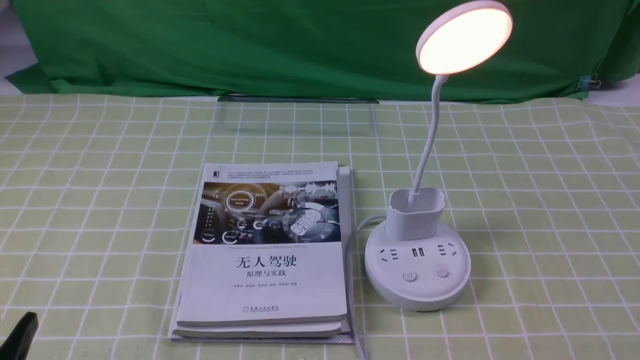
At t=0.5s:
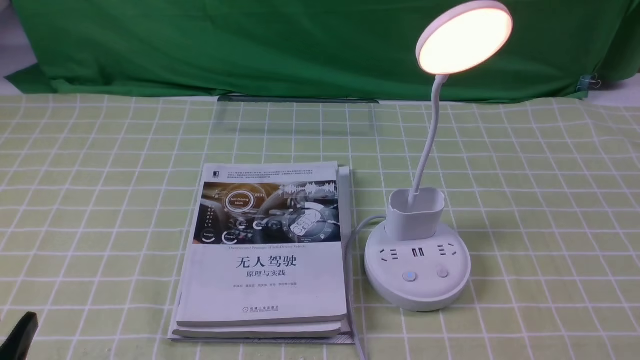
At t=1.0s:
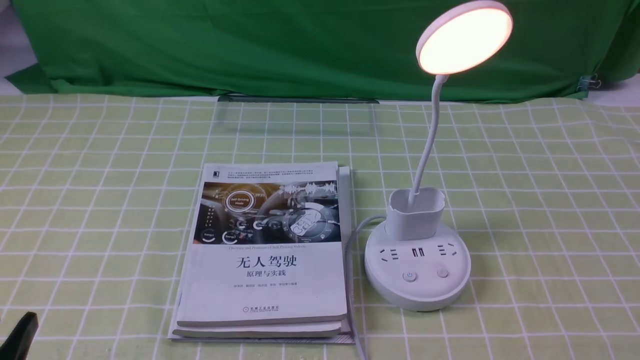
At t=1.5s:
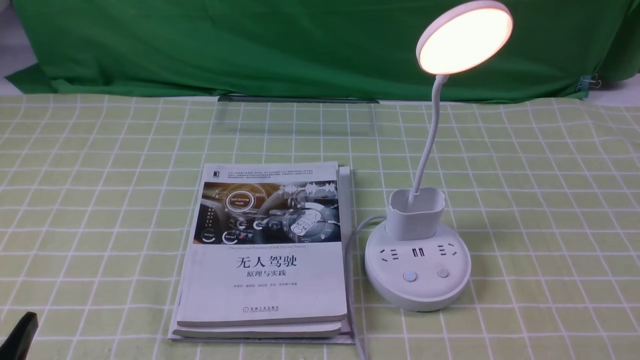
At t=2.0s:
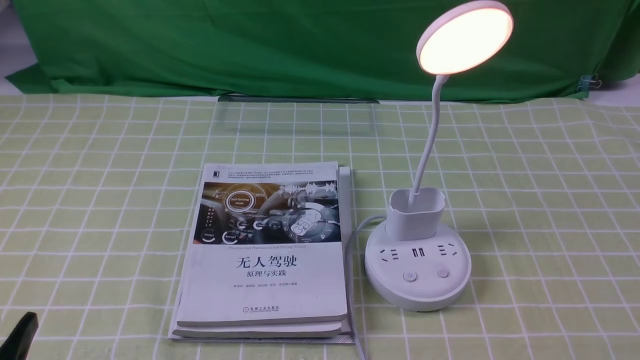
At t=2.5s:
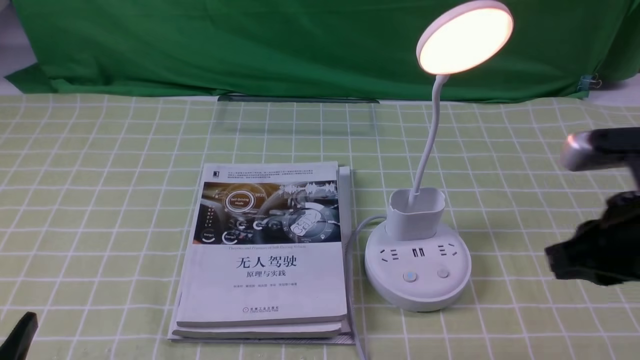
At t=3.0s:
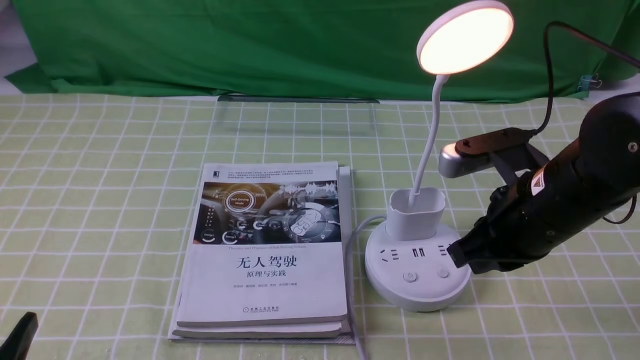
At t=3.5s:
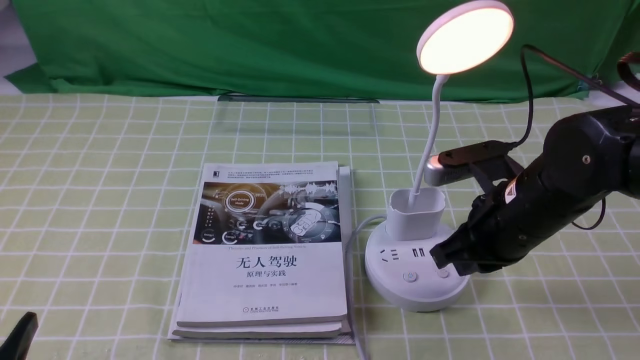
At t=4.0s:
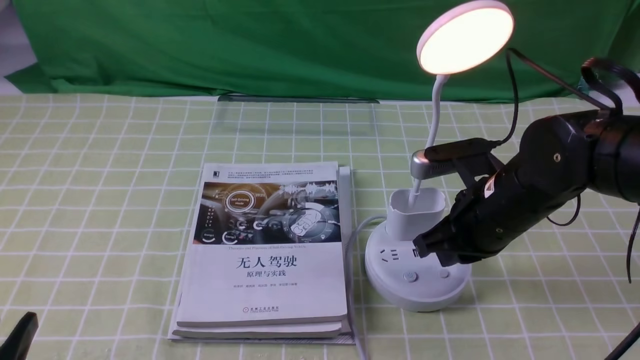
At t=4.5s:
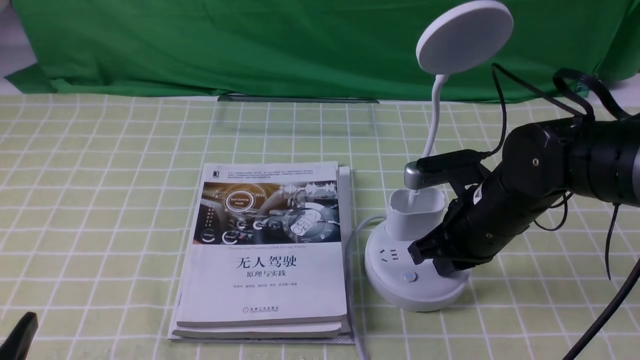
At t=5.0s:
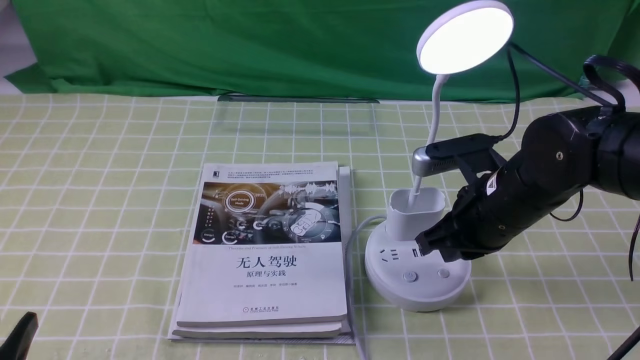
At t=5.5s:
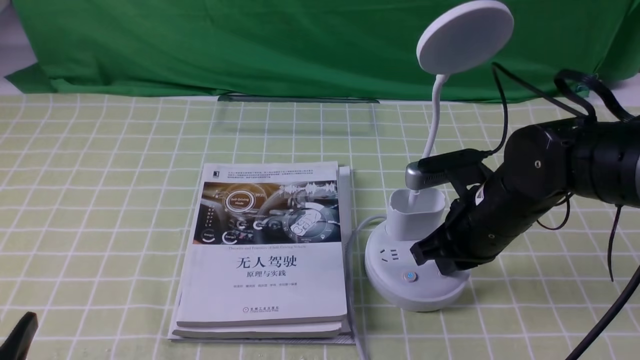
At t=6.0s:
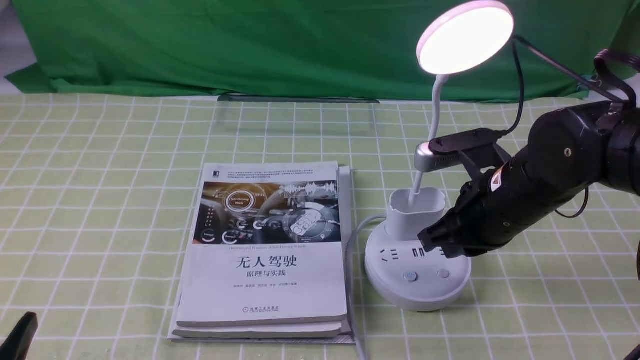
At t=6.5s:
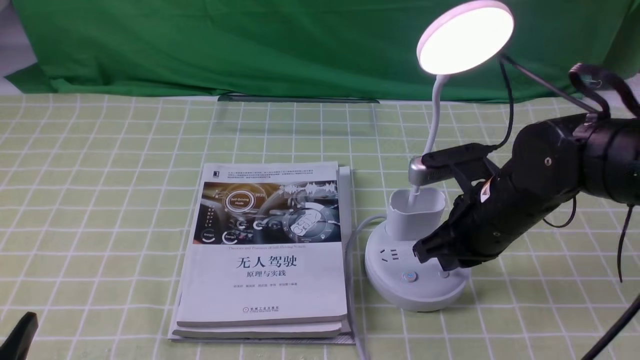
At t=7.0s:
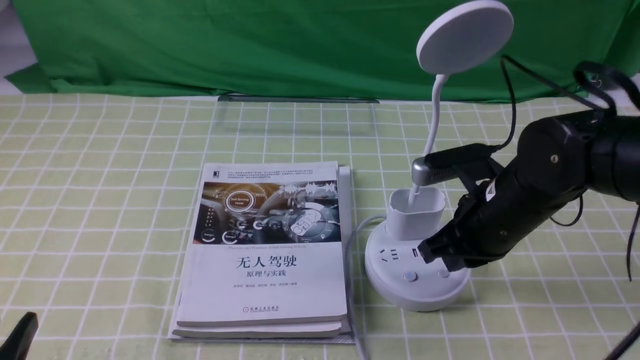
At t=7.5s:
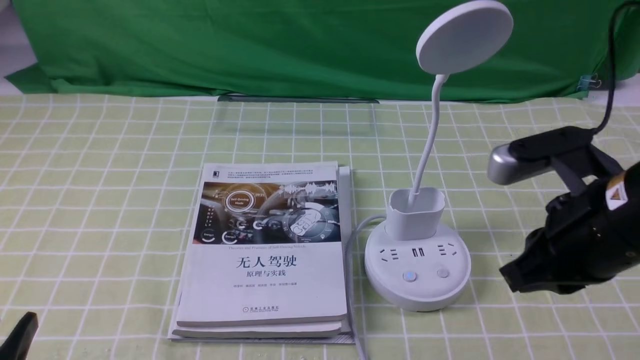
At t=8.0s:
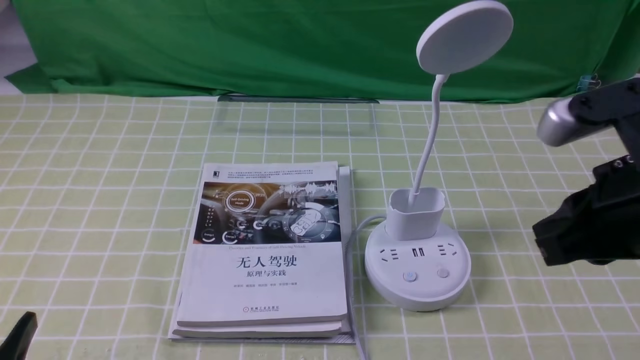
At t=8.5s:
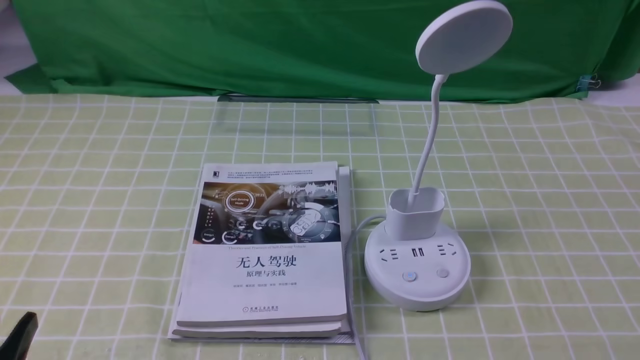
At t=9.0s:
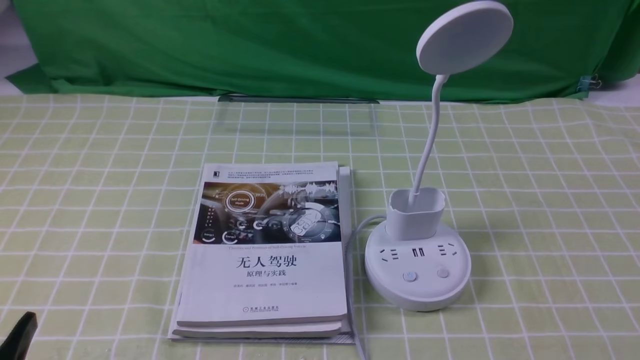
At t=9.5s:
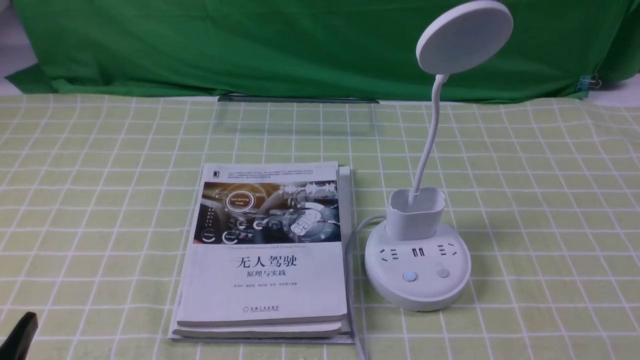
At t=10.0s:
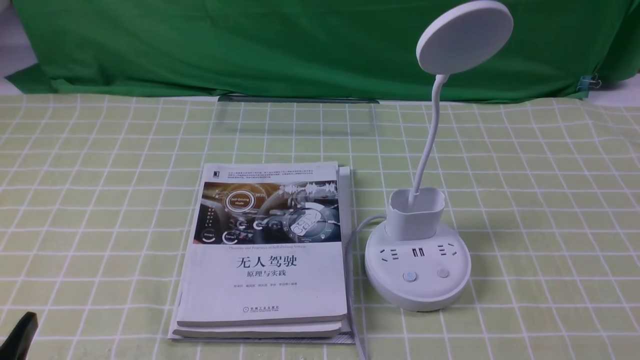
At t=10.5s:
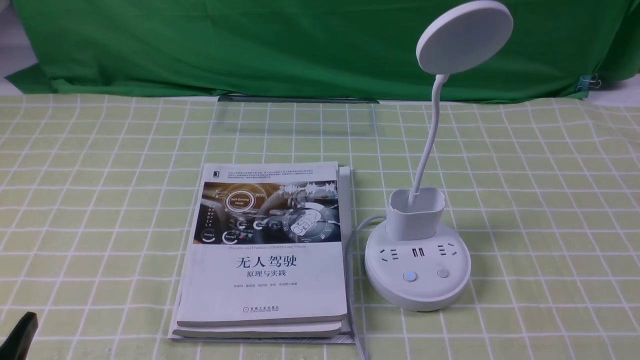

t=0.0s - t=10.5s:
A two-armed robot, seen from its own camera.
Task of the whole recording: turn off the desk lamp on the green coffee tablecloth by hand.
Step, t=0.0s - t=7.0s: use the right arm to press the button switch on the lamp holder.
t=2.0s - t=4.0s: The right gripper goes approximately 30 cm forward and to the left, and closes its fingers.
t=4.0s - t=6.5s: There are only small adjustments of the grippers.
t=6.5s - t=8.5s: The right gripper moves backward and to the right, approximately 25 cm.
